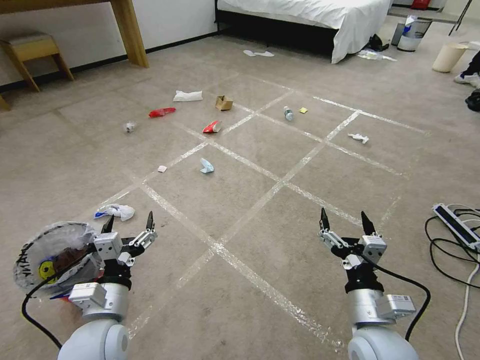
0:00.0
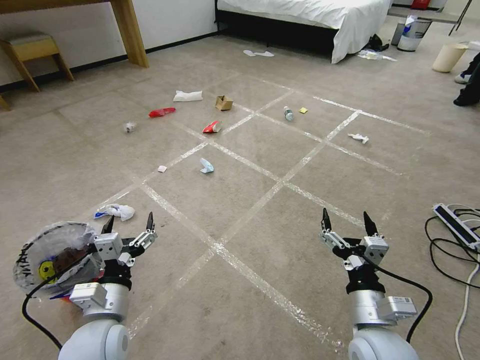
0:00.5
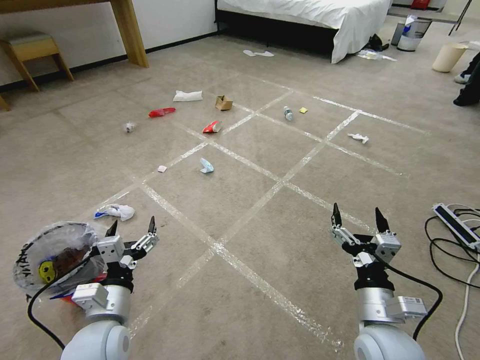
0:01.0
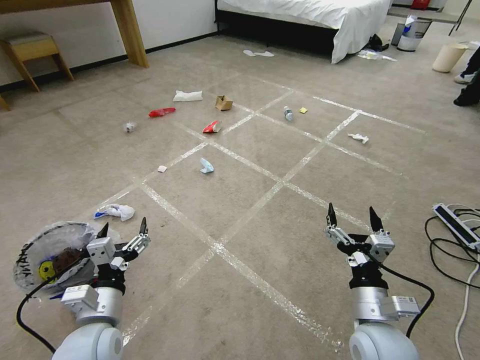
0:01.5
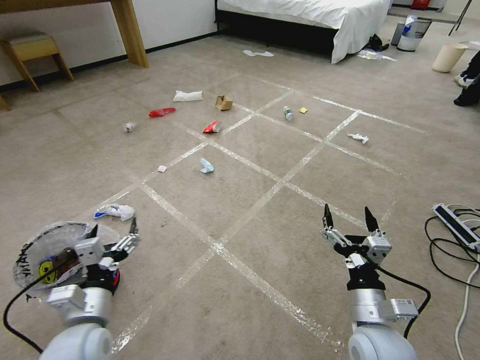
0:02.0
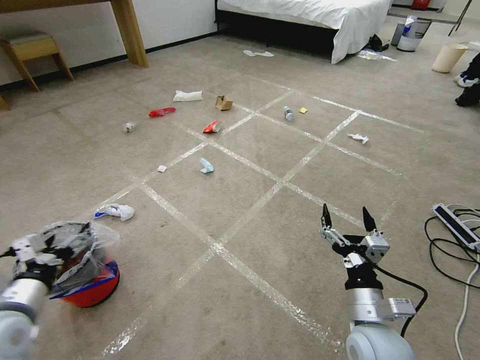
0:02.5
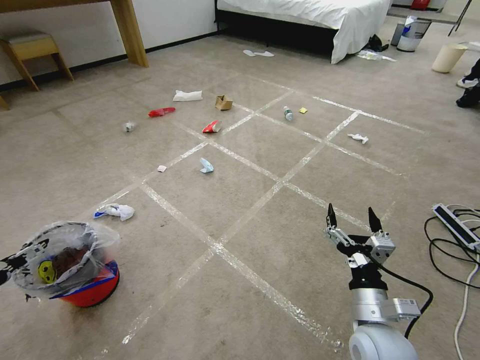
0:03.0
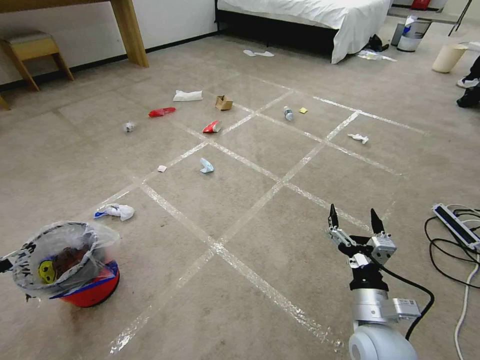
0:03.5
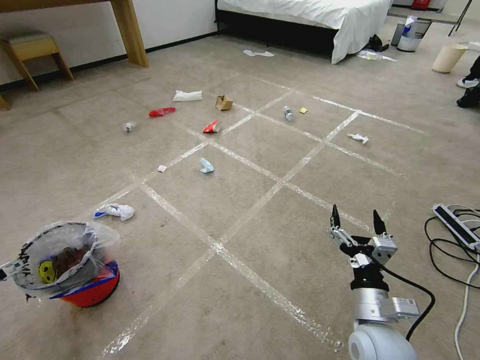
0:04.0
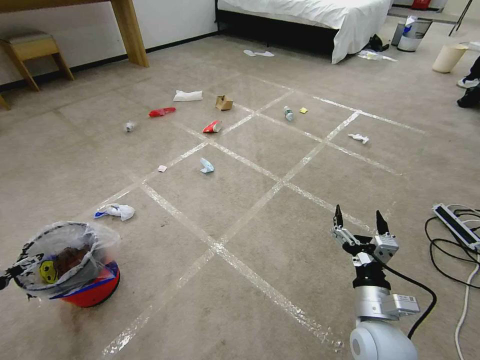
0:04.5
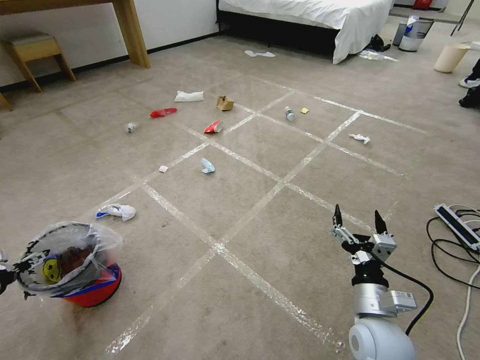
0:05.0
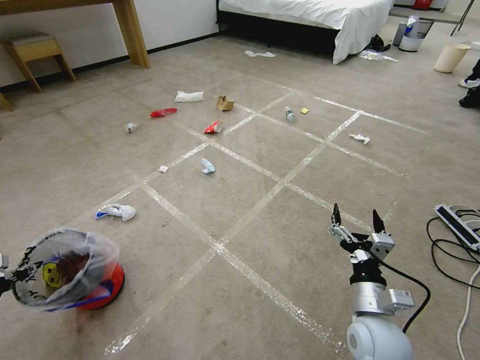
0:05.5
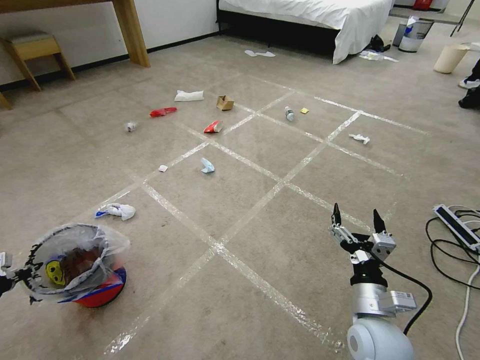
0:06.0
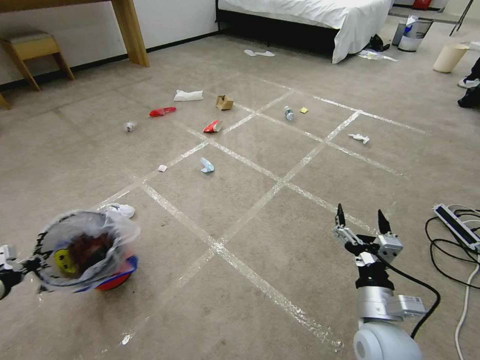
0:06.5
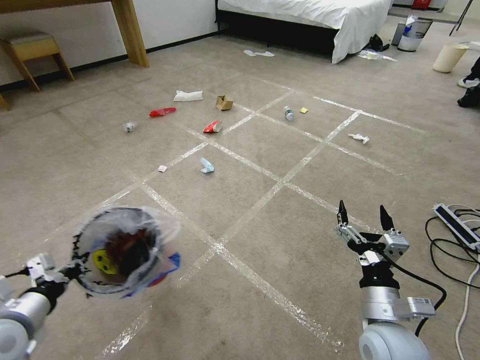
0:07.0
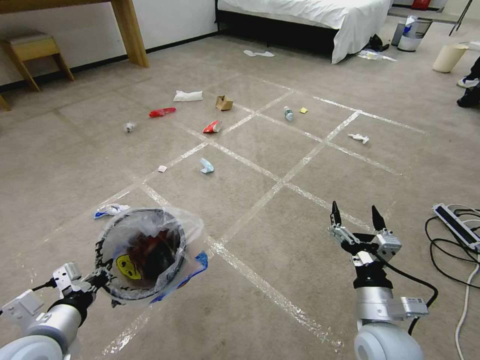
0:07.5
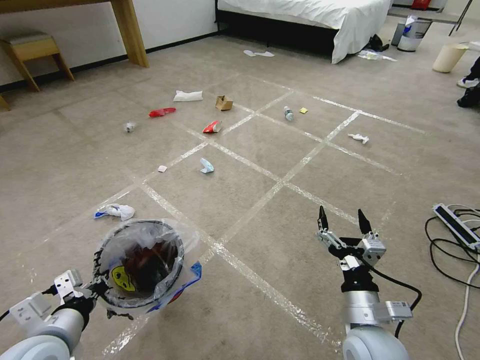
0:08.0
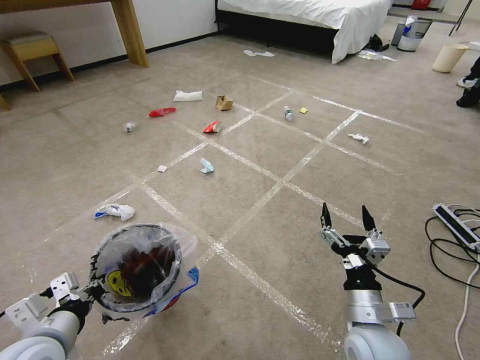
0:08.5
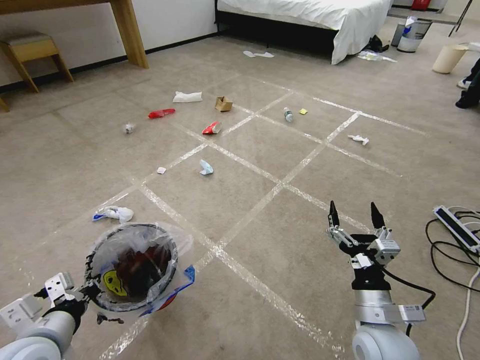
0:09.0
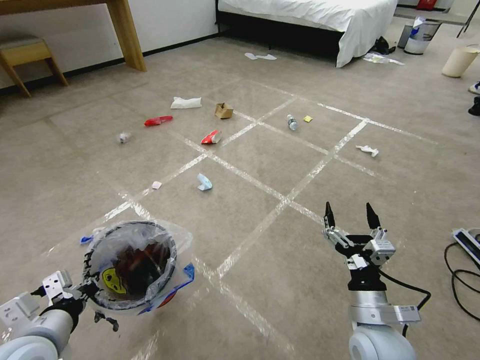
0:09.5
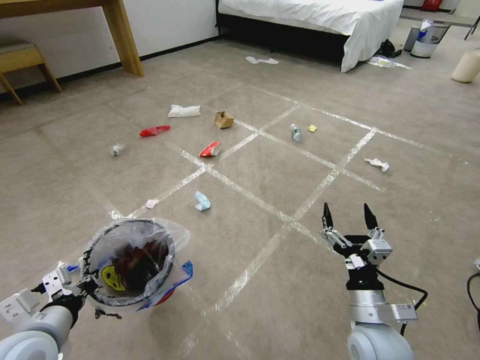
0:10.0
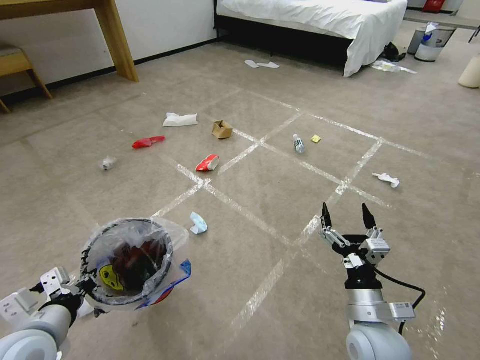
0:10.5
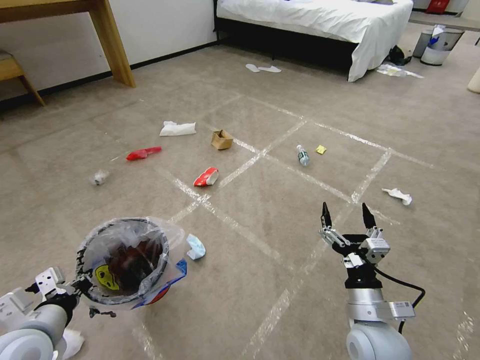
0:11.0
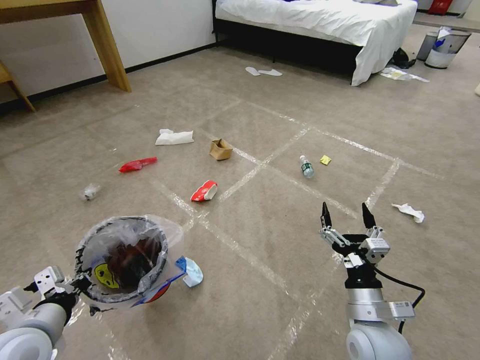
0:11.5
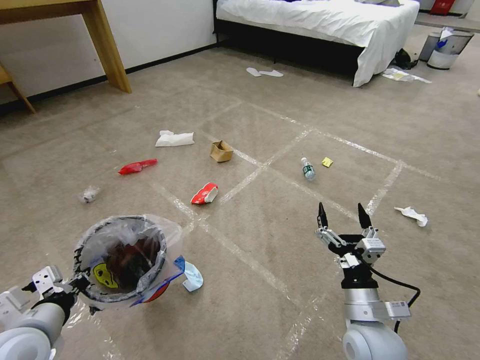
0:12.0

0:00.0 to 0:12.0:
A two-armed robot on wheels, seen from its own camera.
Task of the whole recording: Pick up the trash bin and place the garbage on the floor into it.
0:02.0 to 0:04.0: The left gripper moves to the left, approximately 35 cm.
0:04.0 to 0:06.0: The left gripper closes its fingers.
0:06.0 to 0:08.0: The left gripper travels to the right by about 30 cm.

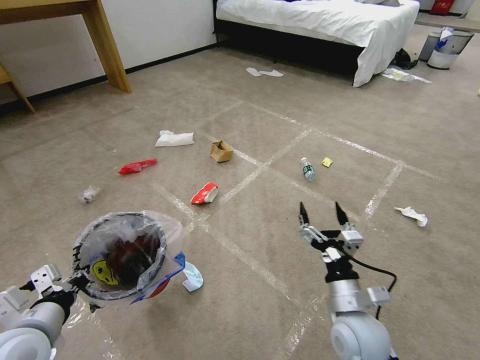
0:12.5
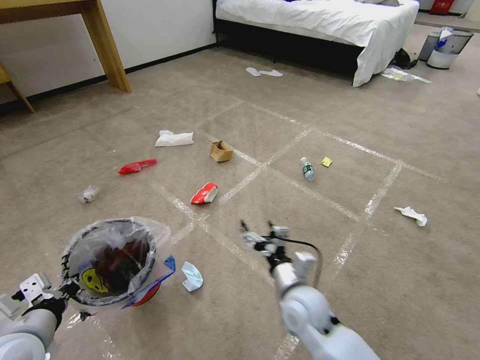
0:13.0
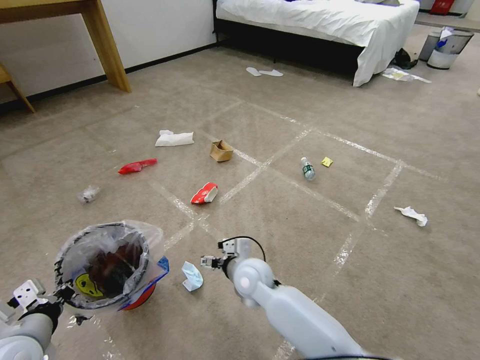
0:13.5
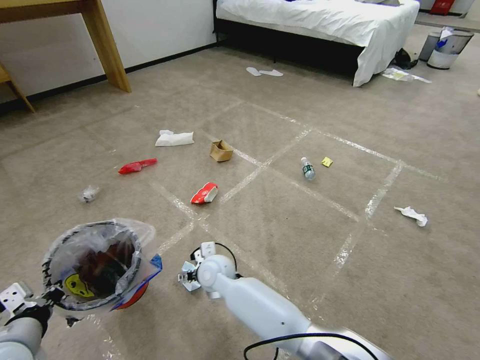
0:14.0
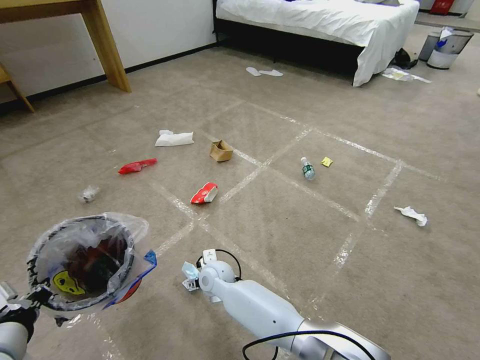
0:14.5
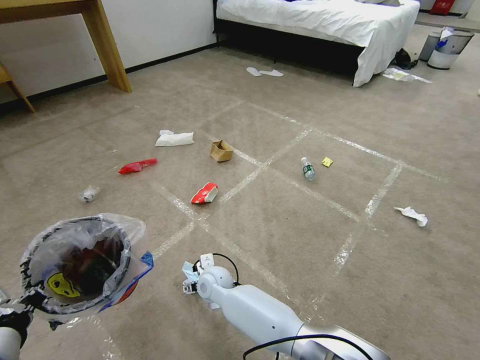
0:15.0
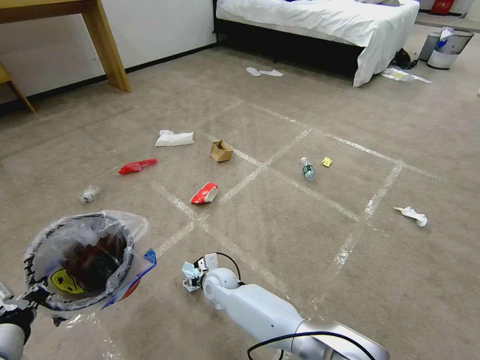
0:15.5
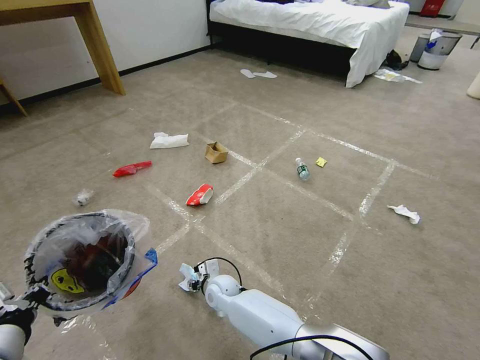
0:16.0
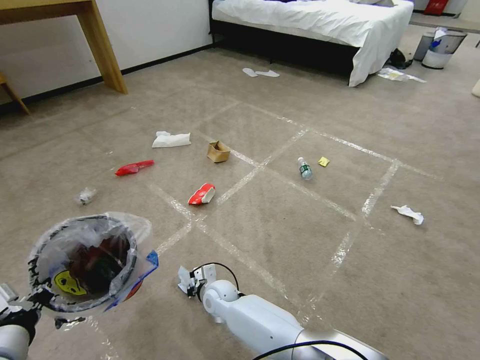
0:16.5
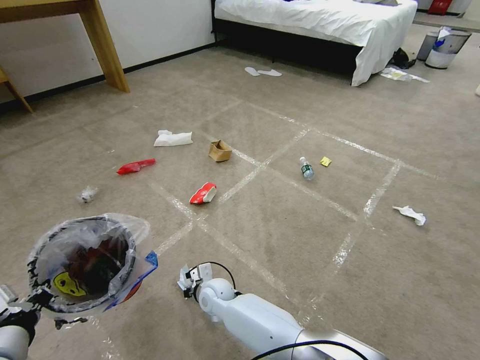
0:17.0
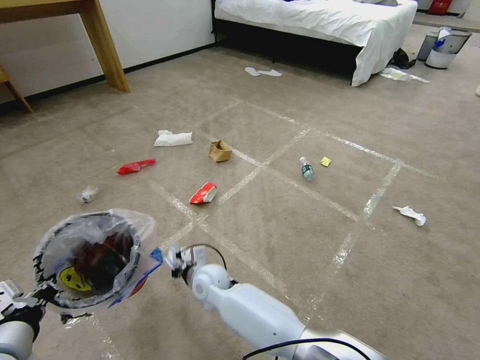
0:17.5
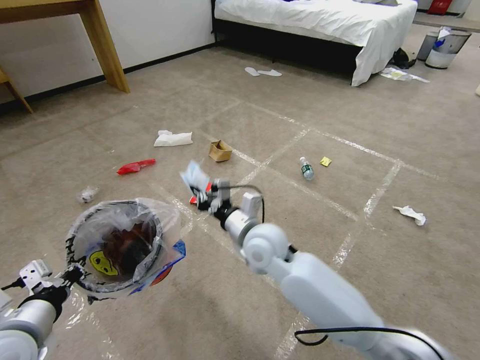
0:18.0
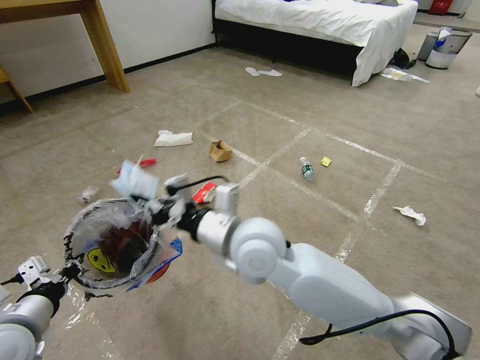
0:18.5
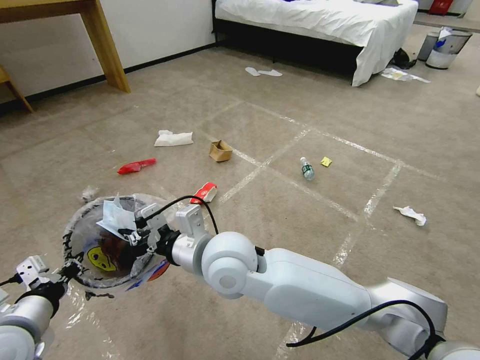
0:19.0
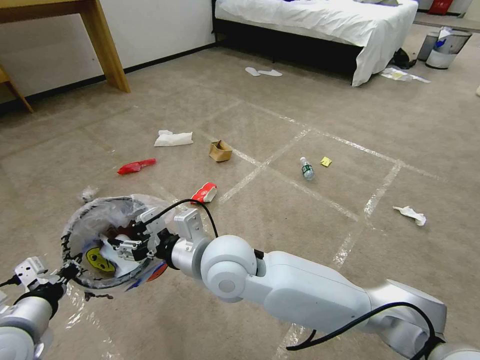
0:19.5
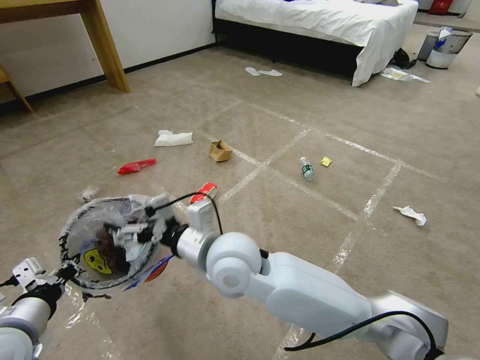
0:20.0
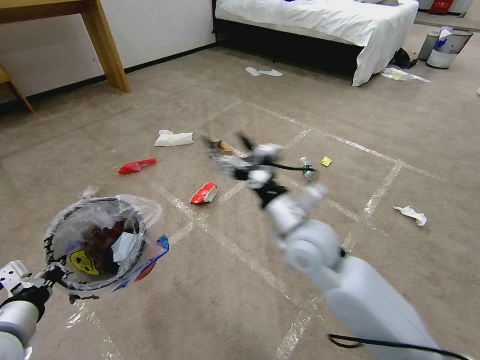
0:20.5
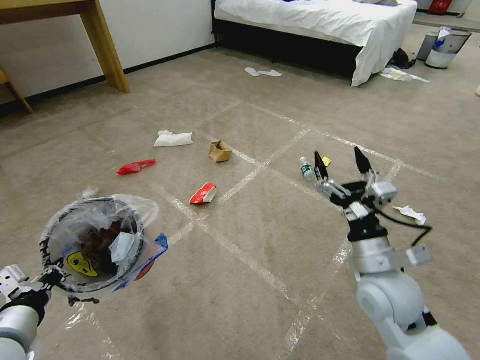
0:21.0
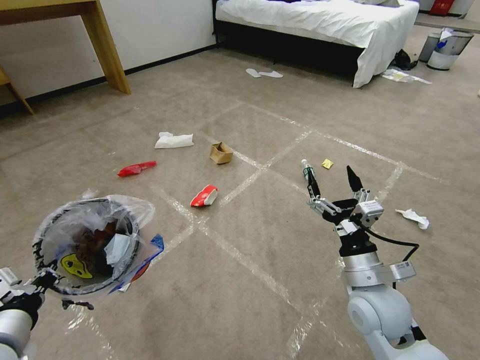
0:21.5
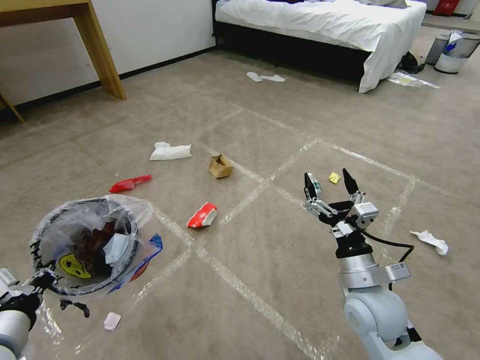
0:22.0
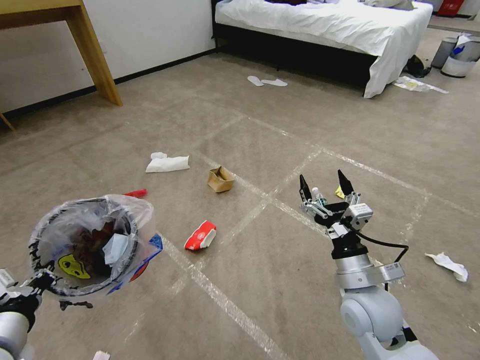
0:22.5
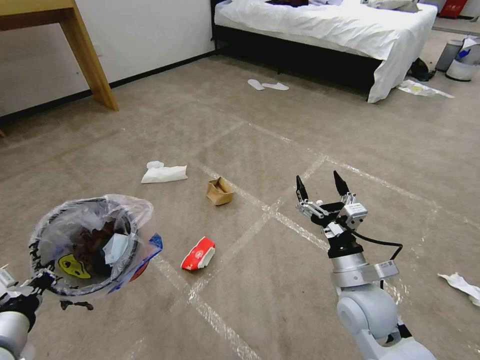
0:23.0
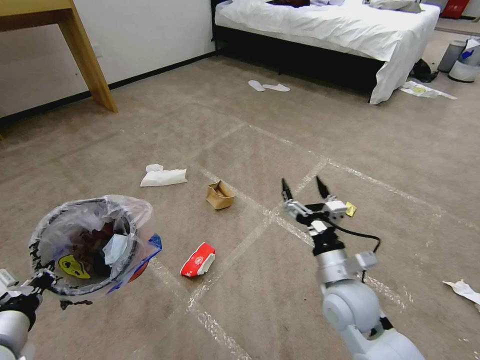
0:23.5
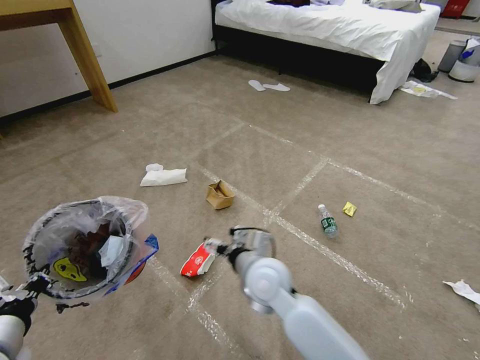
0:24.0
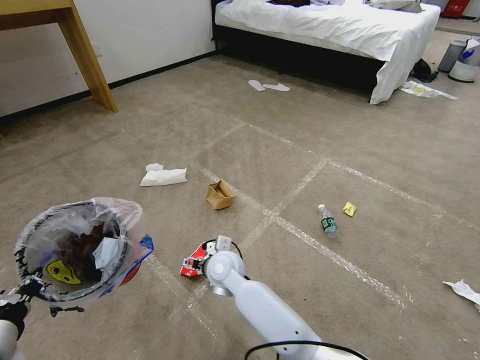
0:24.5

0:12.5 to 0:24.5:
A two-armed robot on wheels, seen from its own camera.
Task of the whole recording: Pick up the trash bin and place the garbage on the floor into it.
0:12.5 to 0:14.5: The right gripper heads to the left and forward, covering some 35 cm.
0:14.5 to 0:16.5: The right gripper travels downward by some 5 cm, and closes up.
0:16.5 to 0:18.5: The right gripper shifts about 35 cm upward.
0:18.5 to 0:20.5: The right gripper is displaced to the right by approximately 10 cm, and opens up.
0:20.5 to 0:22.5: The right gripper is displaced to the right, downward and backward by roughly 15 cm.
0:22.5 to 0:24.5: The right gripper shifts approximately 30 cm to the left and forward.

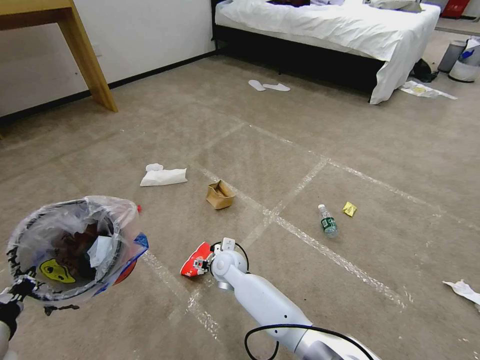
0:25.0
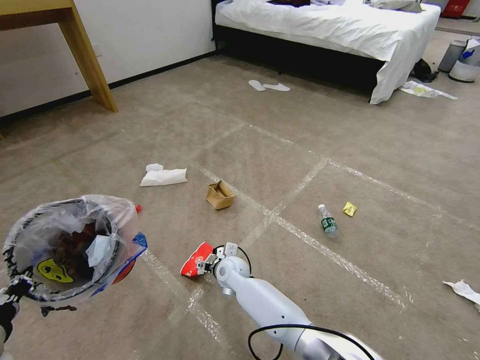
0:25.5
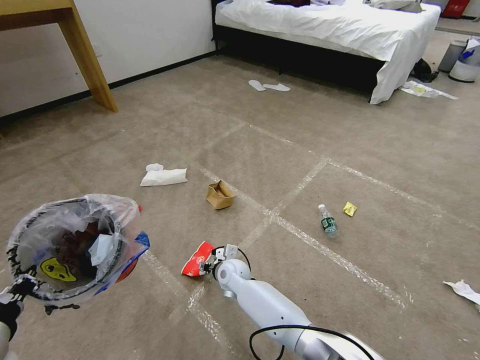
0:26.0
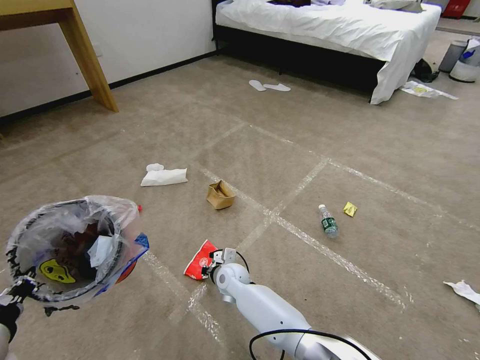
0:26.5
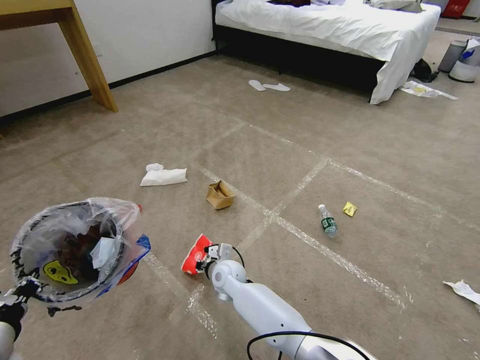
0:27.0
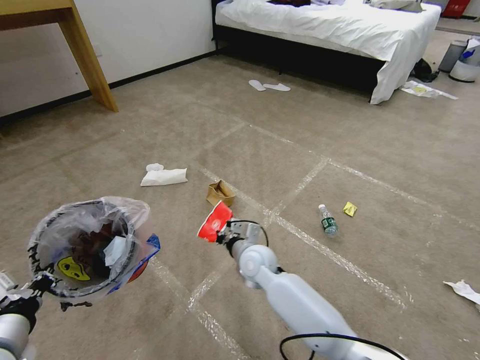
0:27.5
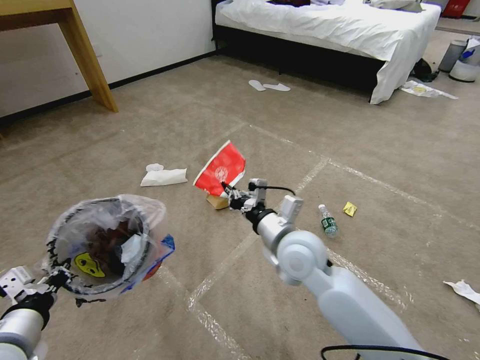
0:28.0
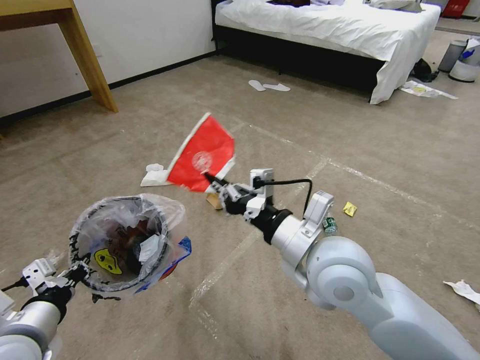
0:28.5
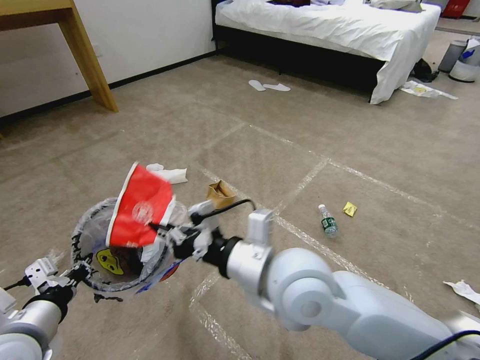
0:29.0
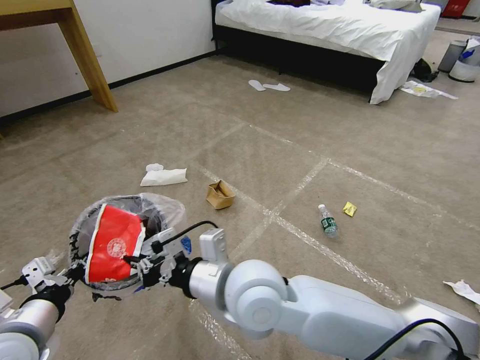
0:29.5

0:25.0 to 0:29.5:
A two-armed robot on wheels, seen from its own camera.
Task of the whole recording: Pick up the trash bin and place the garbage on the floor into it.
0:25.0 to 0:27.0: The right gripper closes its fingers.
0:27.0 to 0:29.5: The right gripper heads upward and backward, covering approximately 30 cm.
